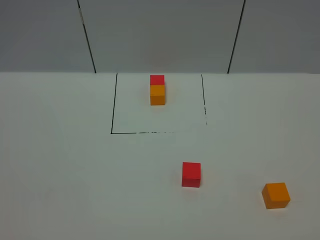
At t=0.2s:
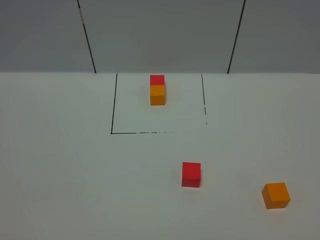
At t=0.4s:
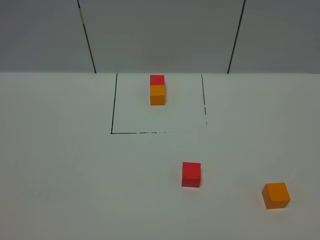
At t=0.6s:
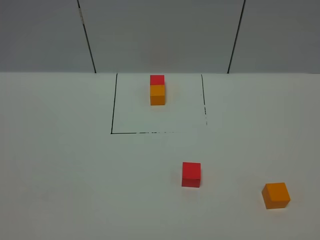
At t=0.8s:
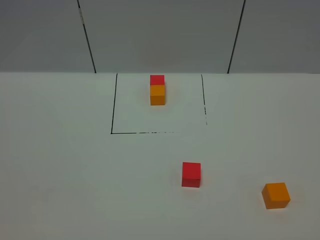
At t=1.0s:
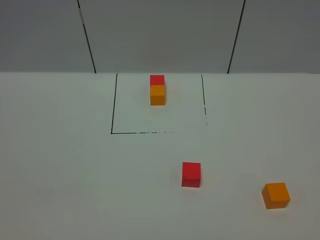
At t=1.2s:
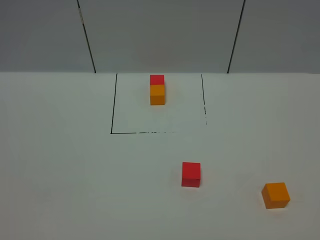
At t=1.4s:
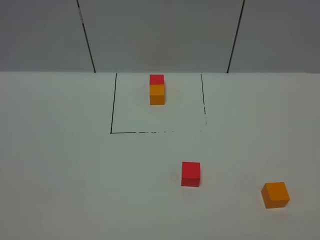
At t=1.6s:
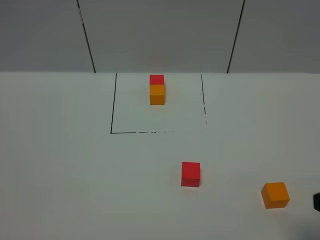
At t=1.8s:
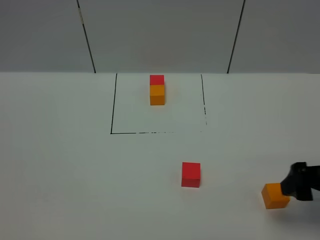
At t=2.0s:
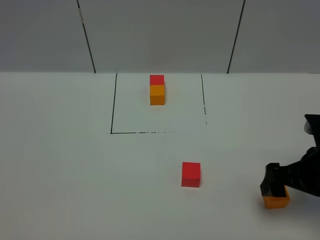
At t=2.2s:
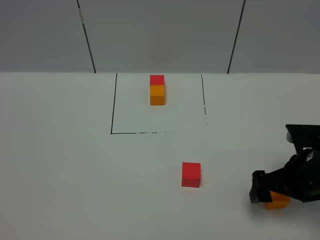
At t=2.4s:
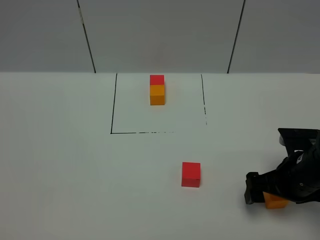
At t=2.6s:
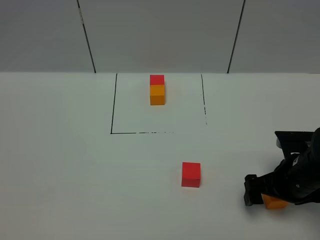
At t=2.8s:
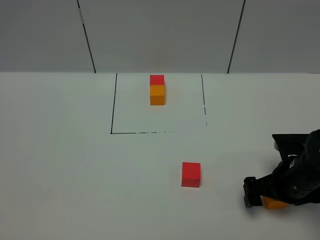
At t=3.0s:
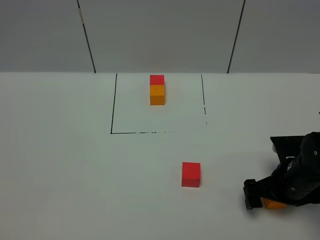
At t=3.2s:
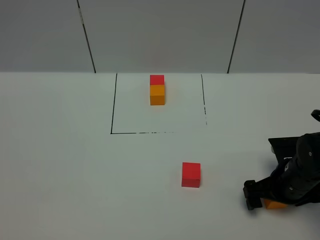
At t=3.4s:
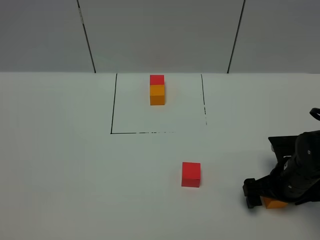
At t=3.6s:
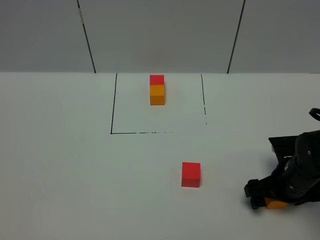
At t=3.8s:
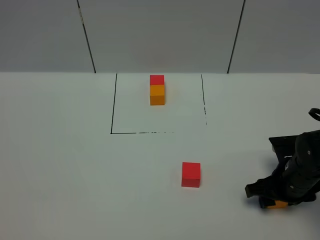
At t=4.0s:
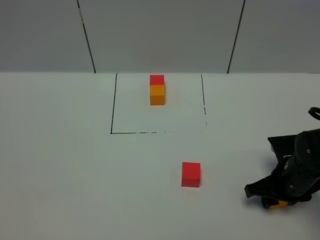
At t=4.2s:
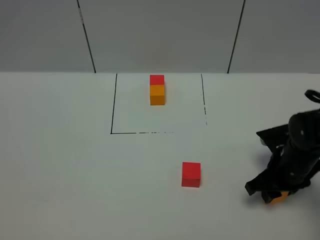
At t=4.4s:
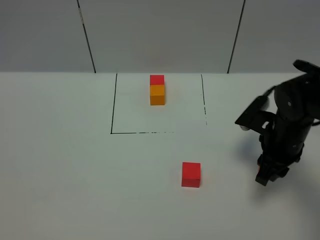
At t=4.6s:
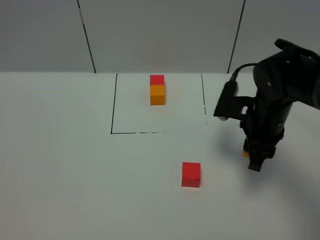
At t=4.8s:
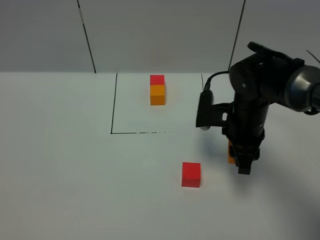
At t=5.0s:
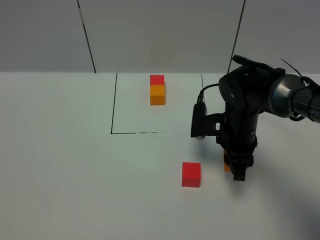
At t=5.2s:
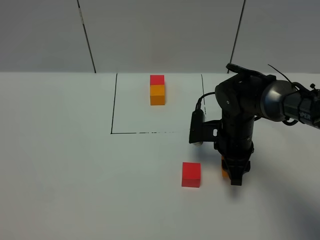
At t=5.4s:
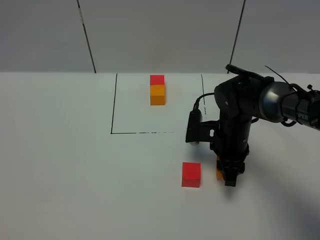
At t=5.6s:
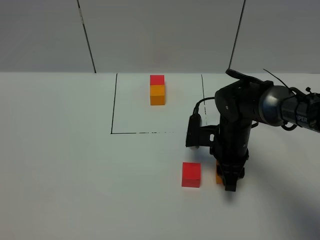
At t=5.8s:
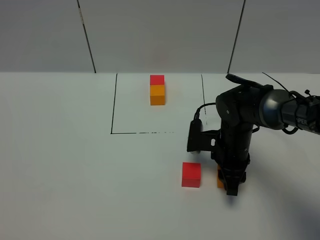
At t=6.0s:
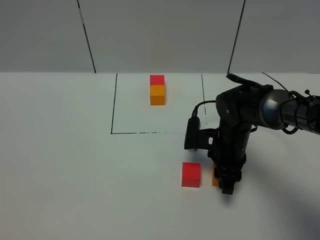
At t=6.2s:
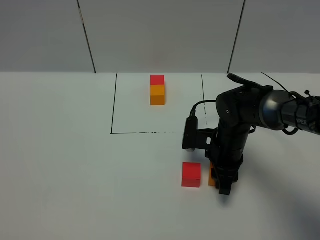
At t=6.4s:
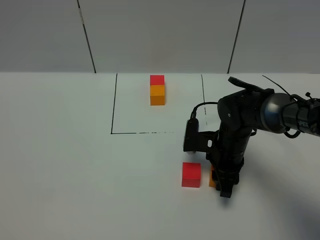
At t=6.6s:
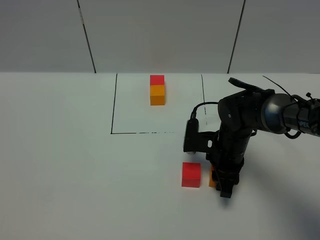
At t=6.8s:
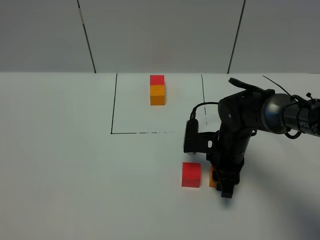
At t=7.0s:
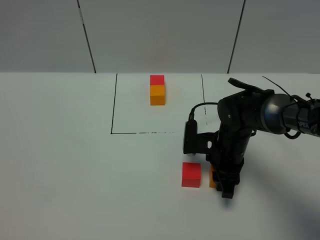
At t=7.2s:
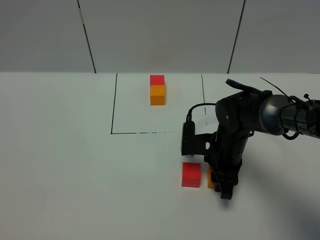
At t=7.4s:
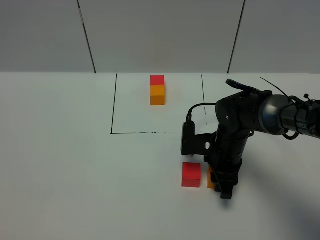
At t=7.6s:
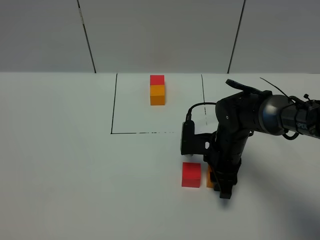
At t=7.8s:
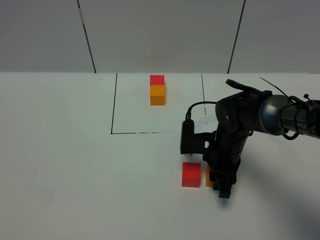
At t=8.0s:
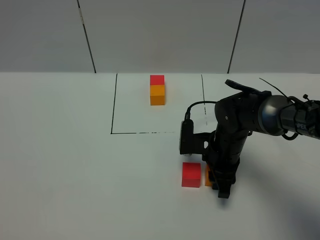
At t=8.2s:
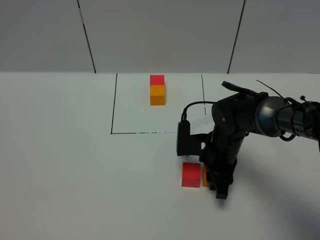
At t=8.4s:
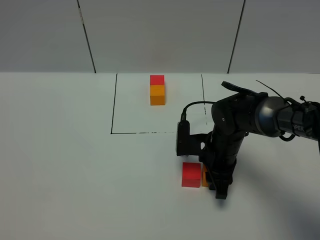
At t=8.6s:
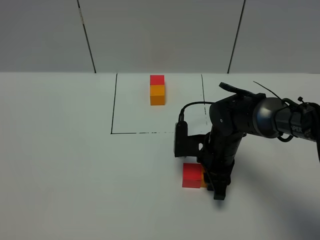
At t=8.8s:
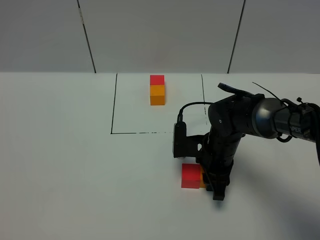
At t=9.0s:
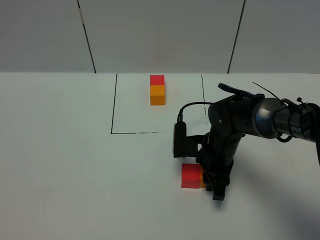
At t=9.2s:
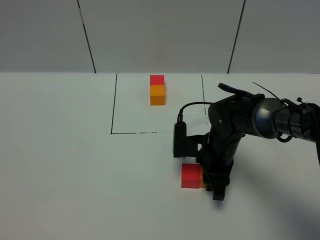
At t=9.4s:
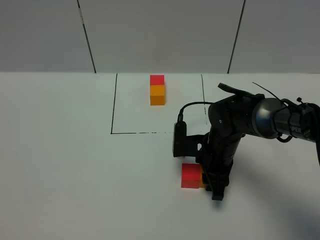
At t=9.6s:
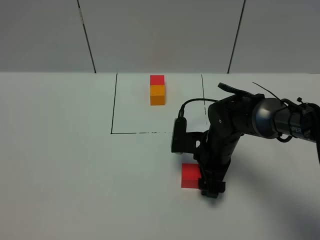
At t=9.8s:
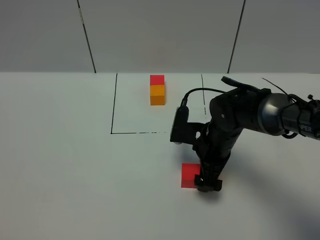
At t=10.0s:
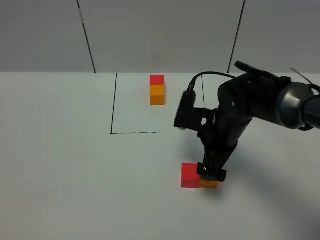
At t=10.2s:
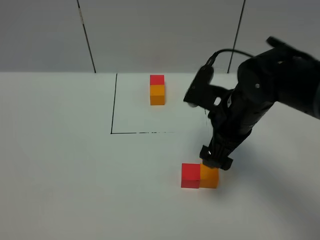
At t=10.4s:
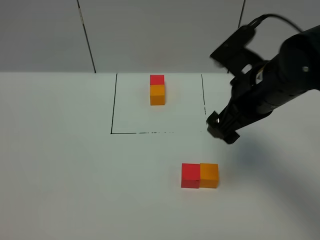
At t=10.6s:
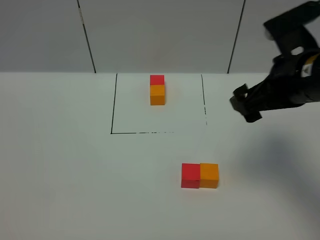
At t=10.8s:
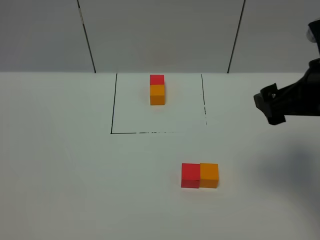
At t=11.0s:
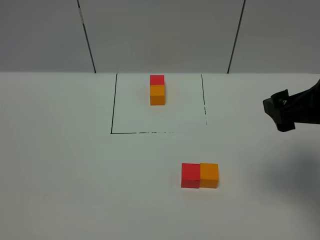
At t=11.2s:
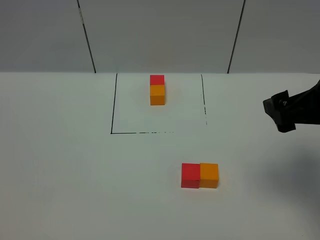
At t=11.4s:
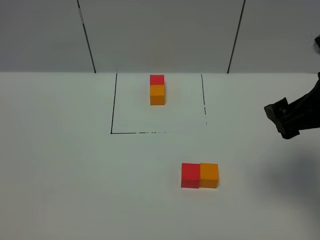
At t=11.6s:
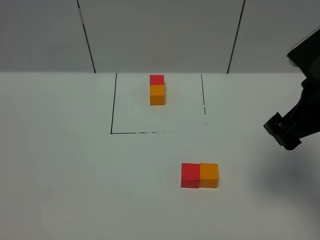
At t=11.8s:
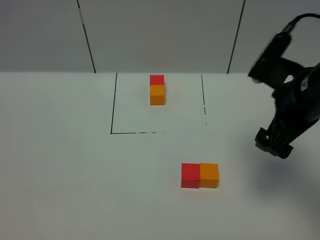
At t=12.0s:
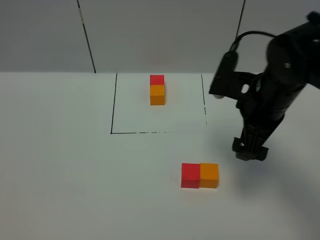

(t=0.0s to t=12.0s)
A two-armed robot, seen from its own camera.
Task of the whole recording: According to the building block template in front, assemble the scattered blocks together.
Step, t=0.0s - t=9.8s: Put the orange cube on the right of the red cube.
t=0.0s - t=1.6s: The right gripper travels forward by roughly 15 cm.
t=1.6s - t=3.0s: The right gripper shifts some 20 cm downward and forward.
t=3.0s - t=4.4s: The right gripper moves upward and forward, roughly 10 cm, and closes up.
t=4.4s - t=6.0s: The right gripper shifts about 10 cm to the left and downward.
t=6.0s - t=9.0s: There are only small adjustments of the grippers.
t=9.0s - t=10.4s: The right gripper travels upward by about 20 cm, and opens its fingers.
t=10.4s - t=12.0s: The right gripper goes backward and returns, approximately 5 cm each way.

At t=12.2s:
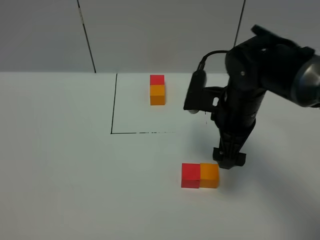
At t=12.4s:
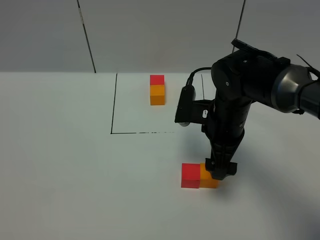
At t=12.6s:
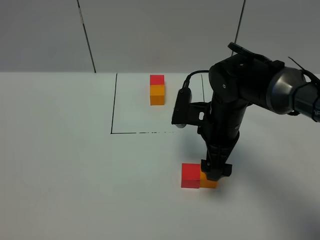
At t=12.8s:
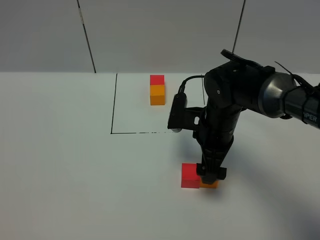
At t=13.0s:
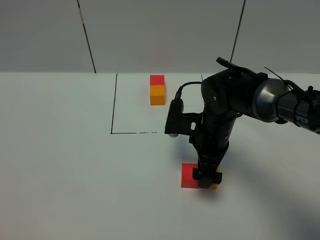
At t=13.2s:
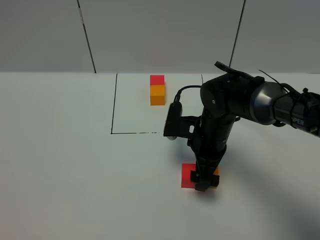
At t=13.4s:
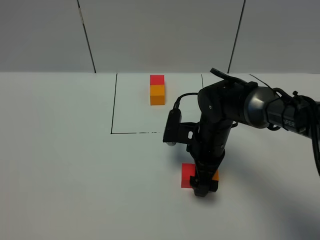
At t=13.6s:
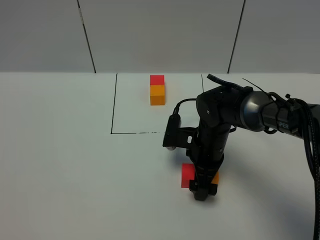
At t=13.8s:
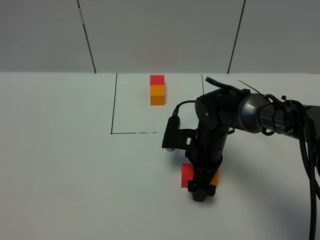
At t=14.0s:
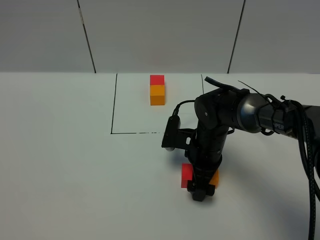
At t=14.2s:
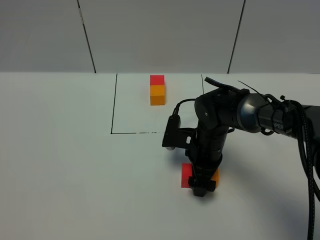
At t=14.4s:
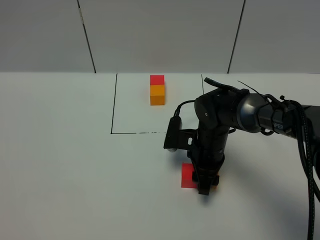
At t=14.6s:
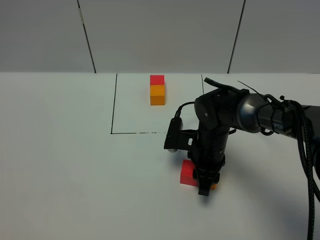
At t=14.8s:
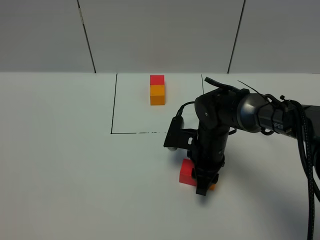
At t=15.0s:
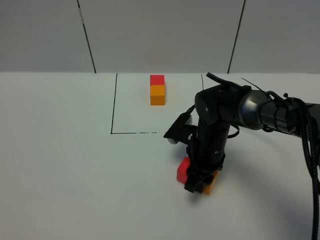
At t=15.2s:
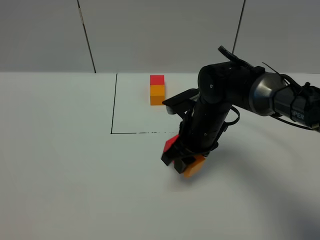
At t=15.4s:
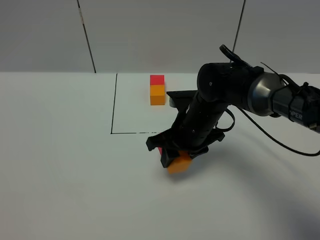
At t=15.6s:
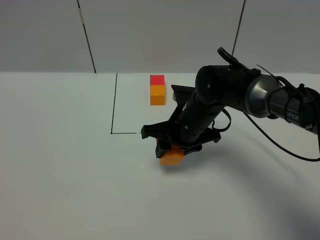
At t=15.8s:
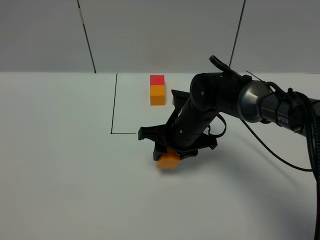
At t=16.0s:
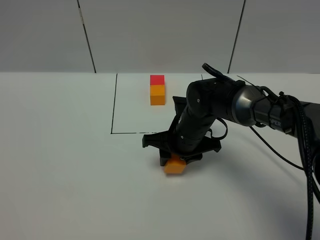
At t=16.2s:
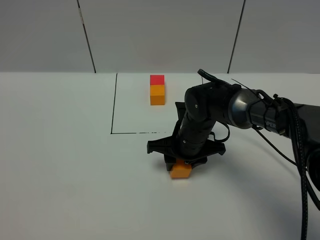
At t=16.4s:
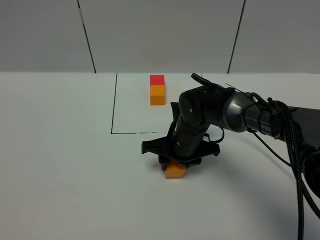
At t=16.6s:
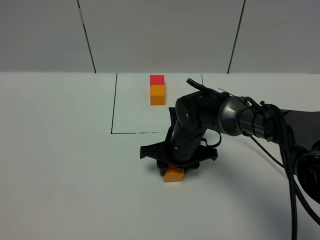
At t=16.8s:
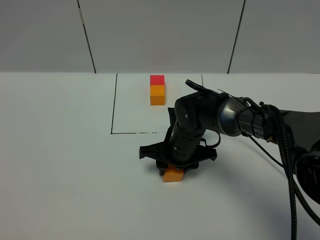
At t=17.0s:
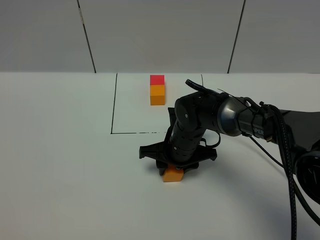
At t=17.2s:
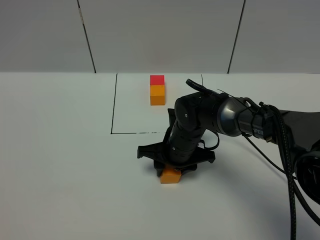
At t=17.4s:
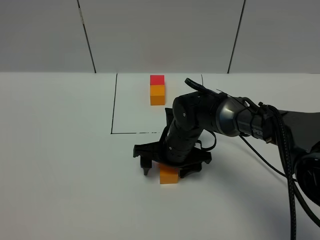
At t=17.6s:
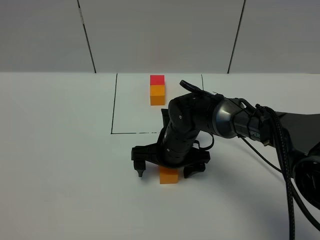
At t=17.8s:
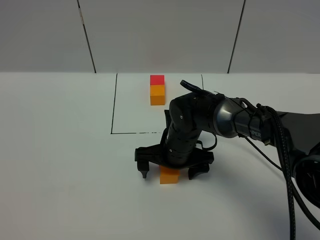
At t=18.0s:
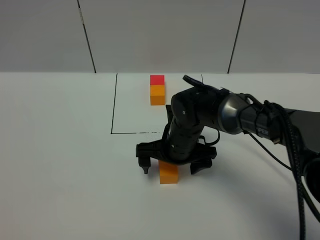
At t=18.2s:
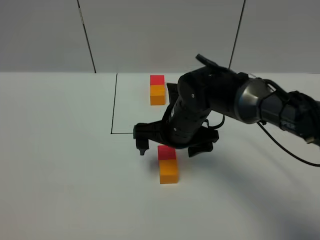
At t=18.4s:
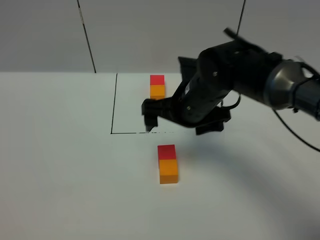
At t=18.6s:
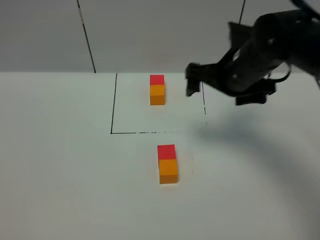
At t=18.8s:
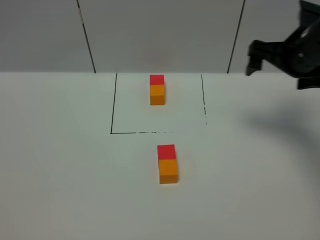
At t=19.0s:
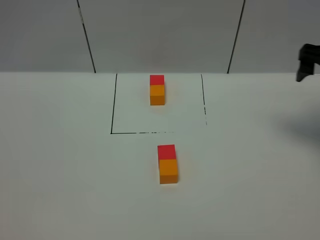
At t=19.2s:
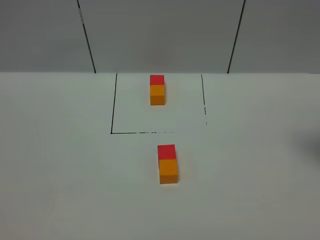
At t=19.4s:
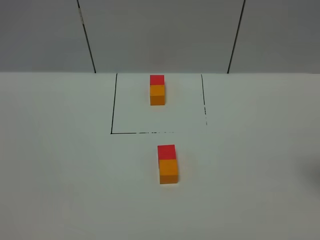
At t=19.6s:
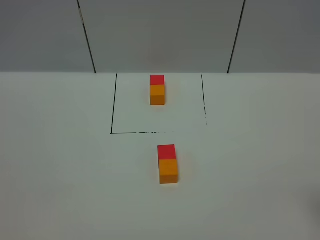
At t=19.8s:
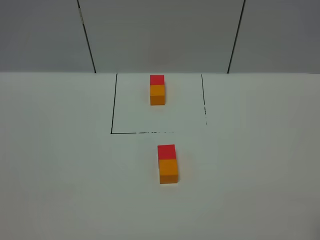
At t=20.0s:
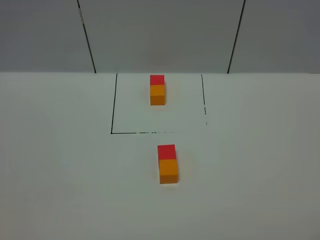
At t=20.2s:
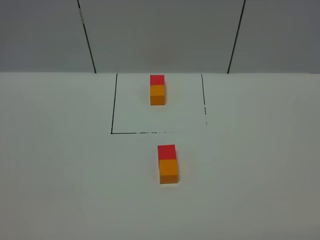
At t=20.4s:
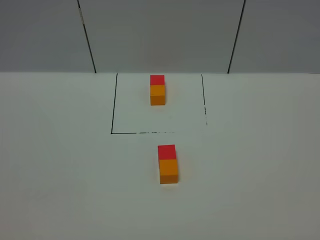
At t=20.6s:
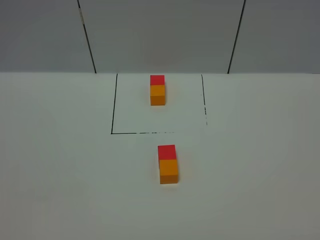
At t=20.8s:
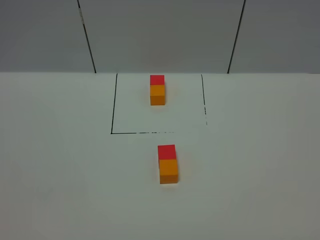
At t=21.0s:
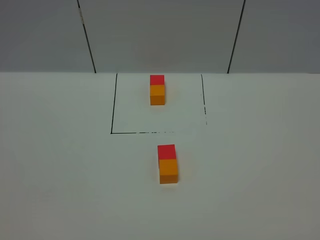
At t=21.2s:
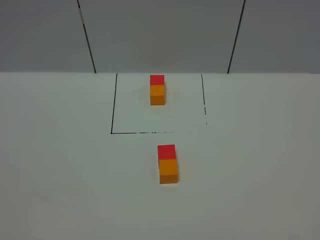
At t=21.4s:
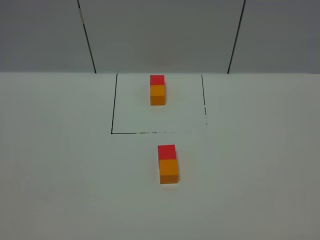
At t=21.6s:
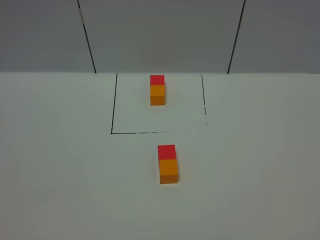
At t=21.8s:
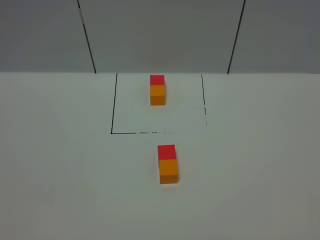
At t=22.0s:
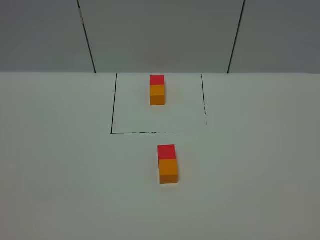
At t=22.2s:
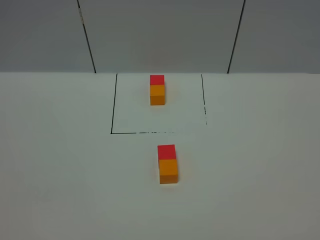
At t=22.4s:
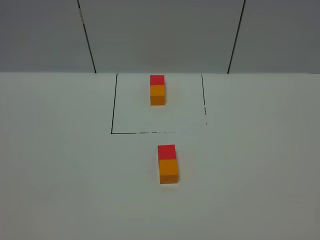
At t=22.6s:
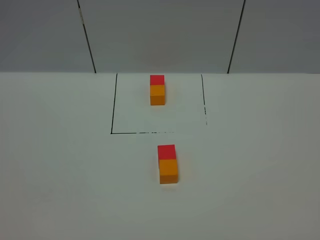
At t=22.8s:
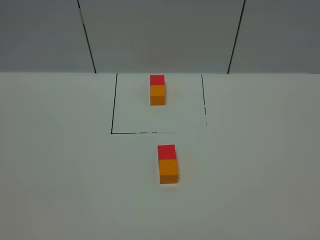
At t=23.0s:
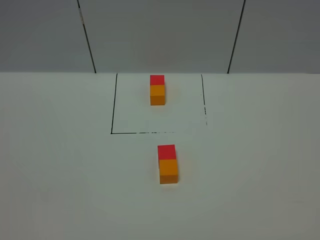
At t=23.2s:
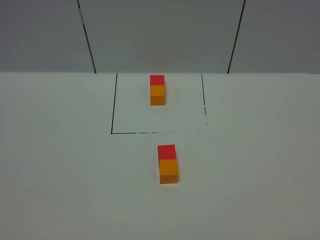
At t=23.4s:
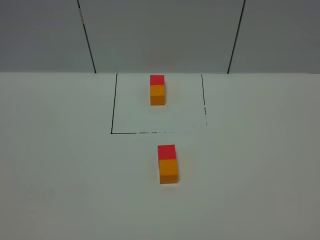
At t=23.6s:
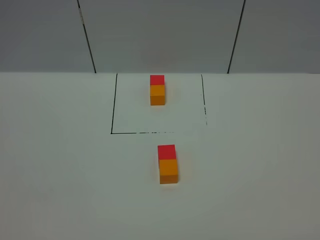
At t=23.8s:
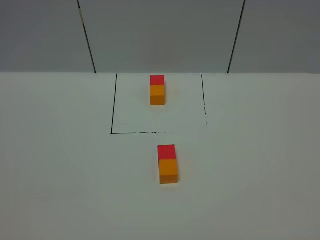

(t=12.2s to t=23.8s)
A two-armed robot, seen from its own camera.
Task of the whole recording: According to the building block template in front, assemble the scattered blocks together.
Step, t=12.2s - t=17.6s: Adjust the pose of the building blocks.
t=12.2s - t=13.6s: The right gripper is displaced downward by approximately 10 cm.
t=13.6s - t=15.0s: The right gripper closes its fingers.
t=15.0s - t=16.6s: The right gripper changes place by roughly 5 cm.
t=16.6s - t=18.0s: The right gripper opens up.
t=18.0s - t=19.4s: The right gripper is displaced to the right, upward and backward by approximately 40 cm.
